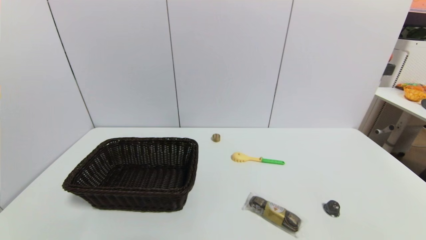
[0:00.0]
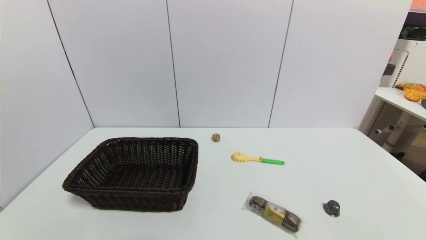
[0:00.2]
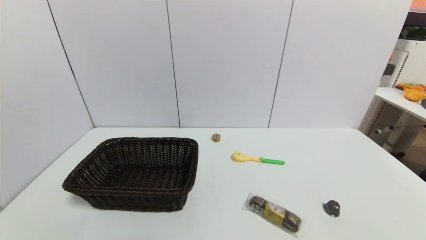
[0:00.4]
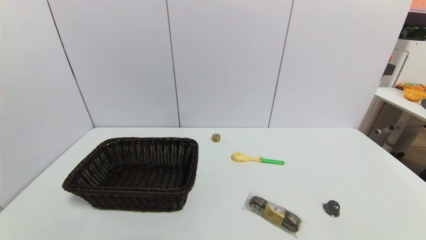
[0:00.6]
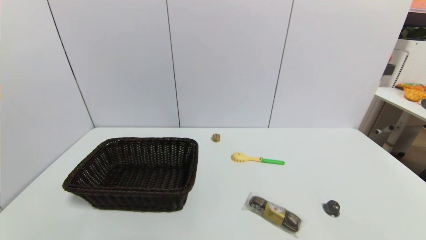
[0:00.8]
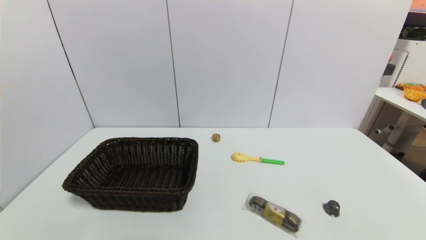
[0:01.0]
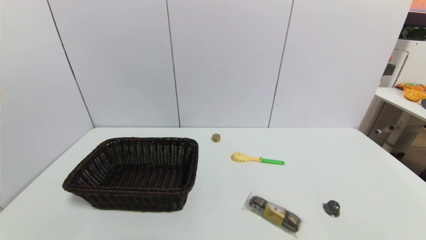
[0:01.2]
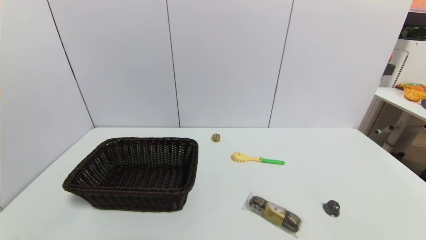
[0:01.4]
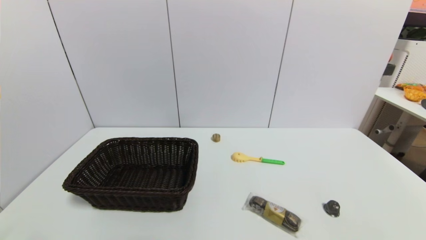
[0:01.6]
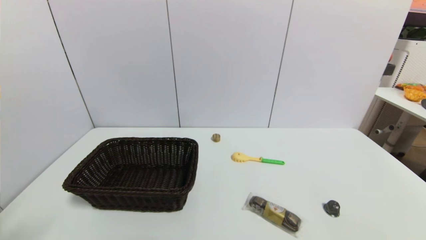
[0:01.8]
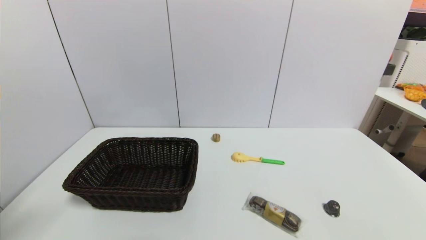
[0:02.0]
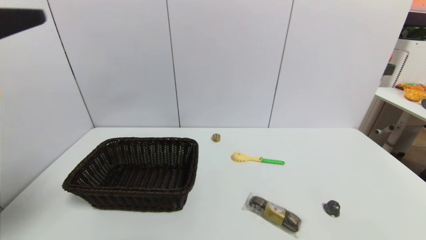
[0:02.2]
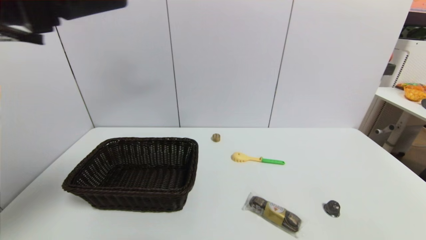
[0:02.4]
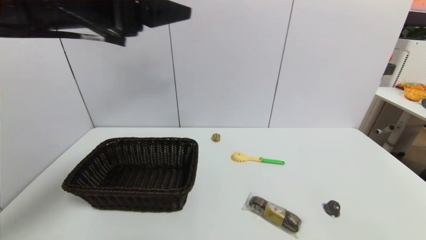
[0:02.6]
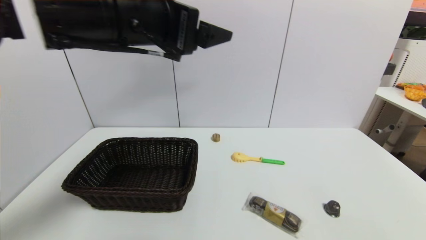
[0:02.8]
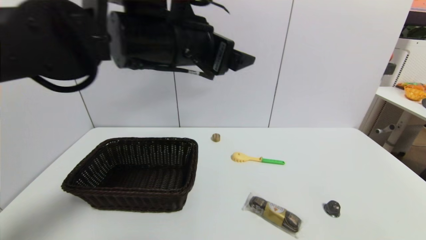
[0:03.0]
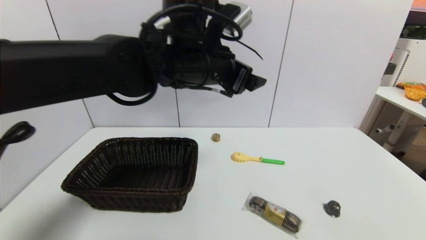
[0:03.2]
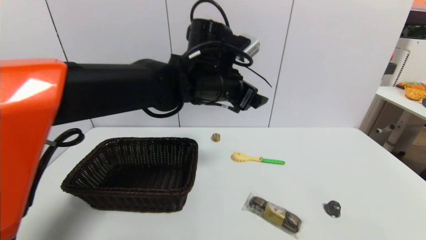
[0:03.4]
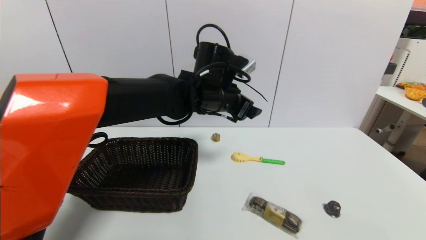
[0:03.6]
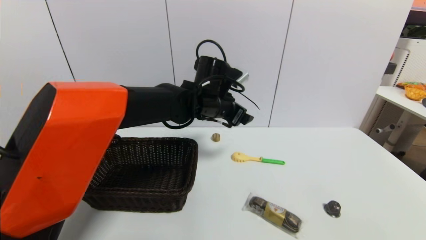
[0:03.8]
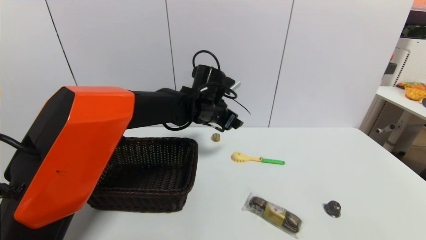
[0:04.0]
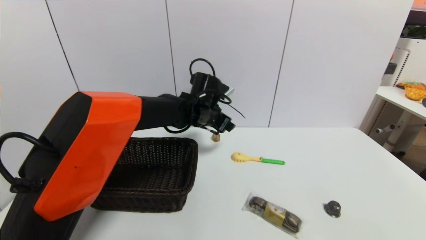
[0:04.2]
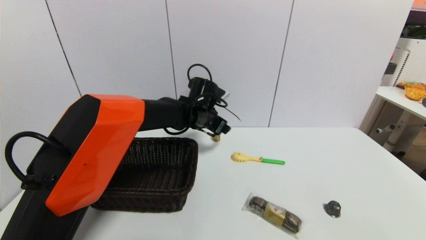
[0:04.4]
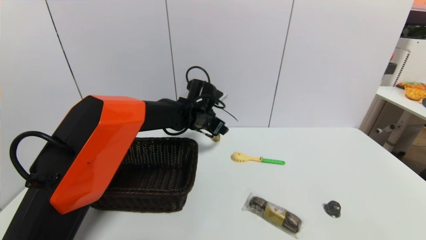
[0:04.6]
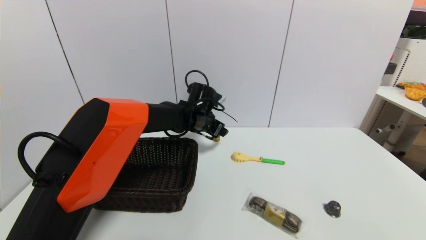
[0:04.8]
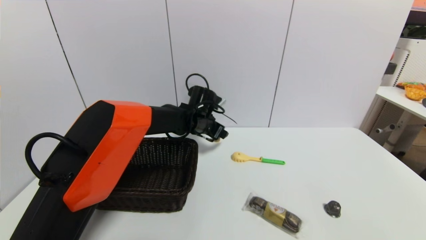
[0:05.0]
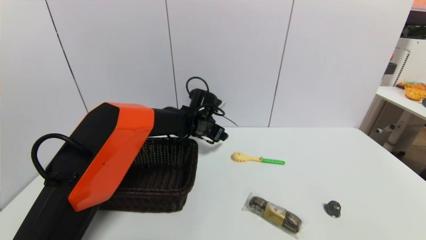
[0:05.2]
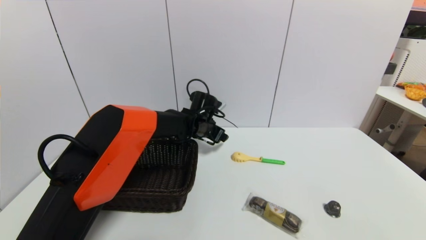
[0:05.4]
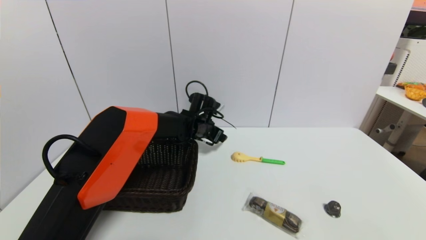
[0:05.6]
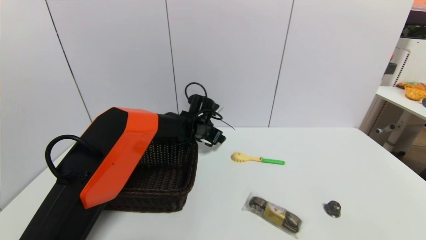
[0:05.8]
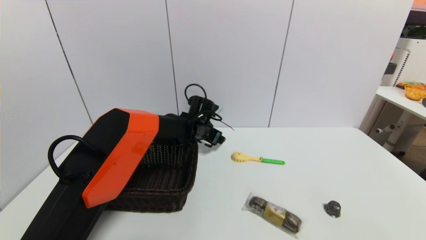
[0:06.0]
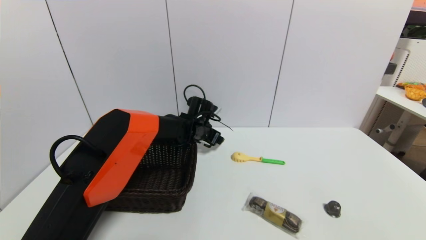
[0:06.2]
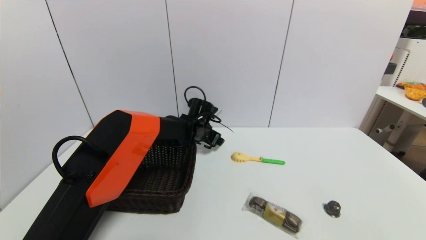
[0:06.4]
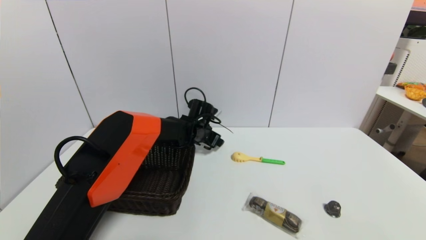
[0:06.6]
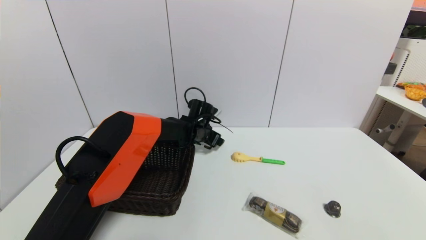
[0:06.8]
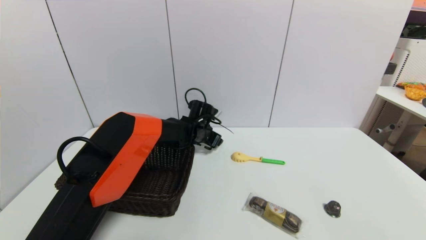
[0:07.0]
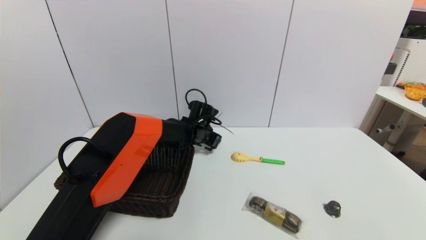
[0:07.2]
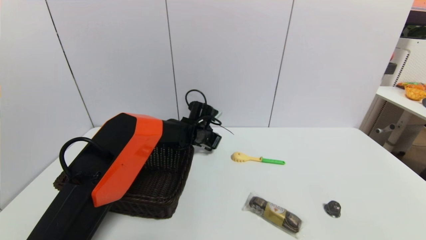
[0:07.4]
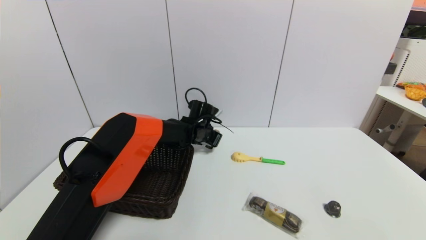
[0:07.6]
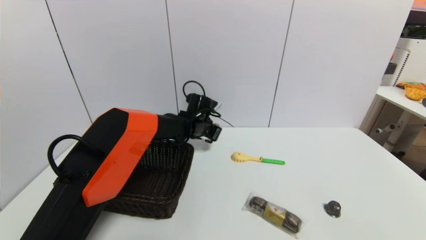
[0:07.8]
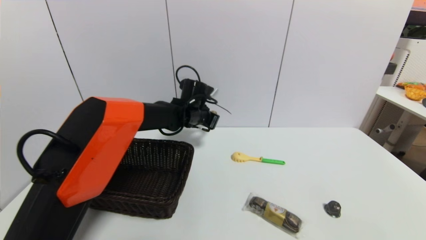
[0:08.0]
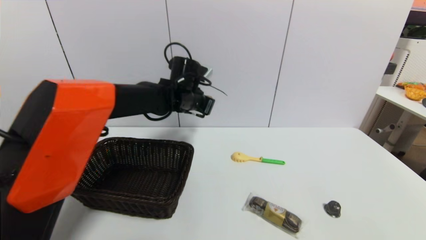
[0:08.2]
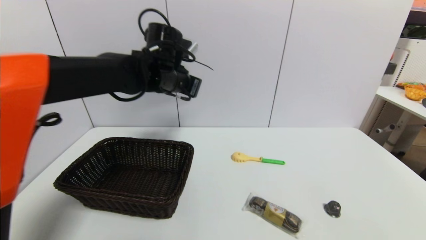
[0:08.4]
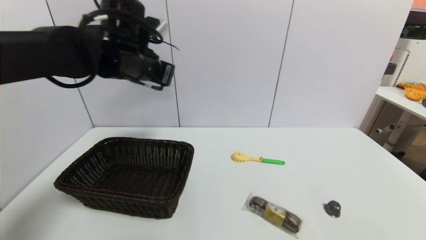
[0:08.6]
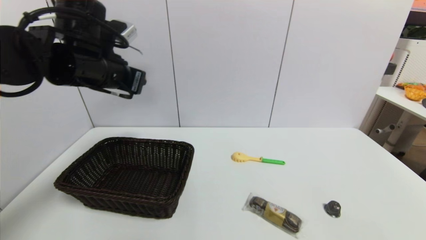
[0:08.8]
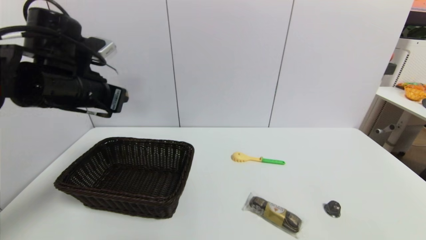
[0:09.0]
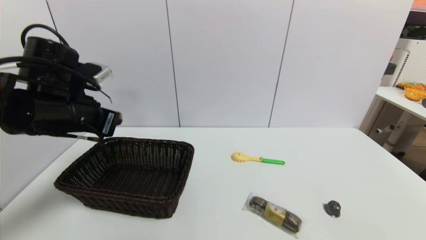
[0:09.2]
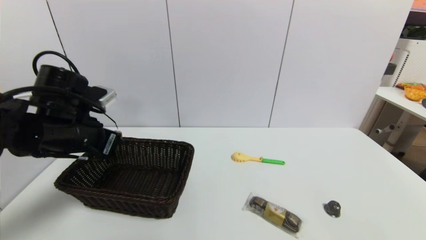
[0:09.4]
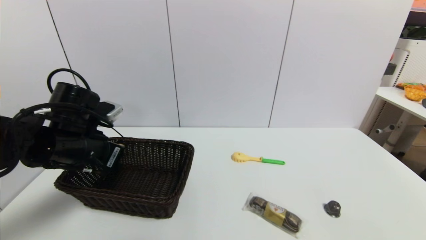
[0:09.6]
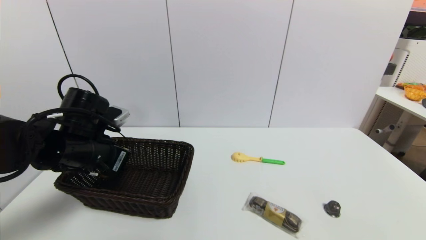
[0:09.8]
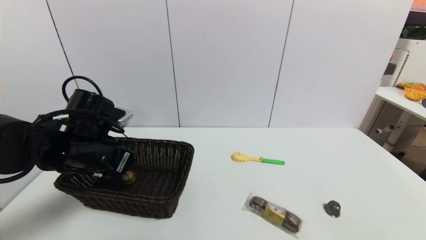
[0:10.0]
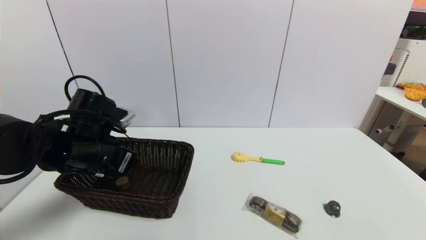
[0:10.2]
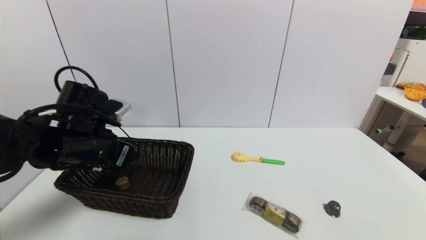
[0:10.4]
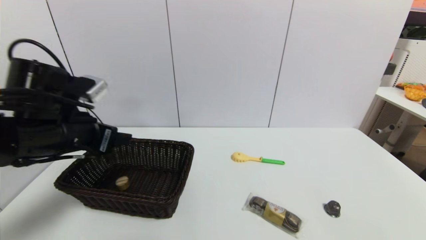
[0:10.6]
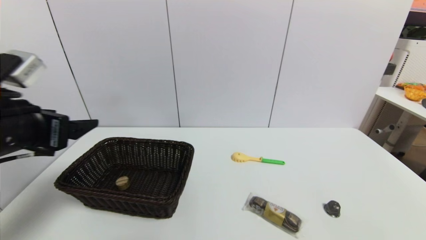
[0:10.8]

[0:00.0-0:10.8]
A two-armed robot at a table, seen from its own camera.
Task of the whole recording: use a gripper to pick the target object and place on the brown basket.
Step, 0:00.0 to 0:07.4: Grasp the round wooden block with the left gripper.
Step, 0:07.6 to 0:10.2: Place the round wooden block into the basket with the left gripper.
0:01.6 to 0:03.0: The left gripper goes roughly 40 cm forward, to the right and upward.
0:03.0 to 0:04.6: The left gripper moves downward and forward, some 25 cm.
0:04.6 to 0:06.2: The left gripper is displaced downward by approximately 5 cm.
0:06.2 to 0:07.8: The left gripper closes up.
0:07.8 to 0:09.2: The left gripper goes roughly 30 cm backward, to the left and upward.
0:09.2 to 0:10.8: The left gripper goes some 10 cm backward, and opens up.

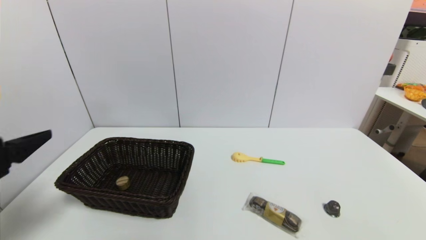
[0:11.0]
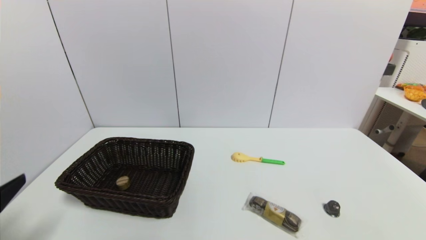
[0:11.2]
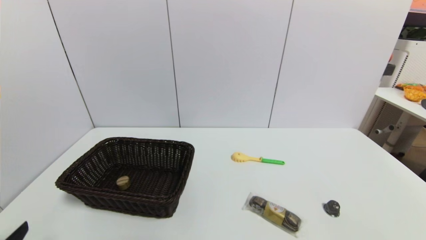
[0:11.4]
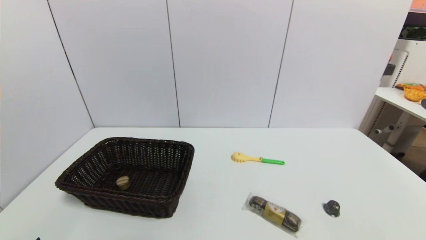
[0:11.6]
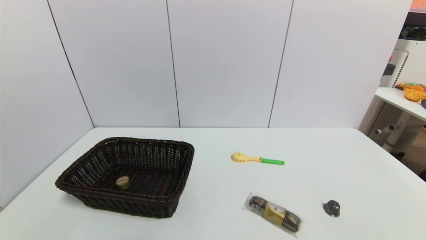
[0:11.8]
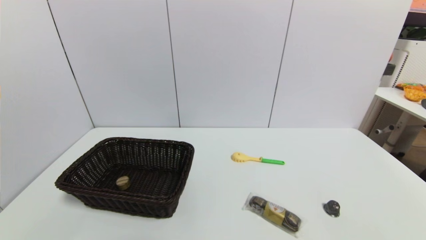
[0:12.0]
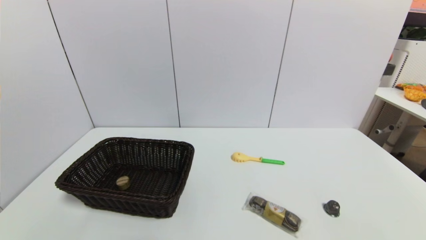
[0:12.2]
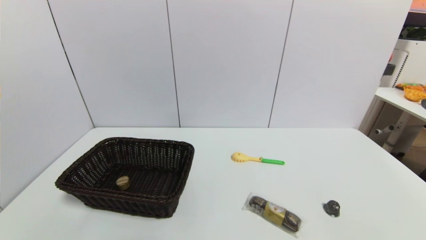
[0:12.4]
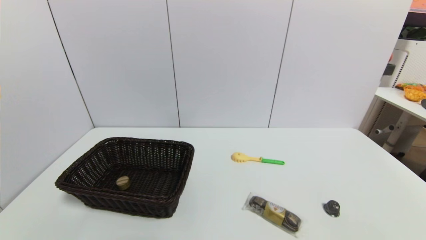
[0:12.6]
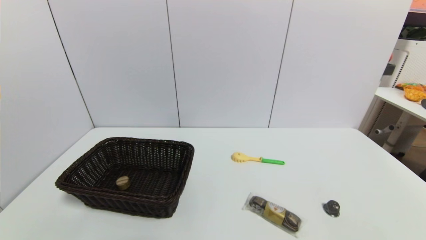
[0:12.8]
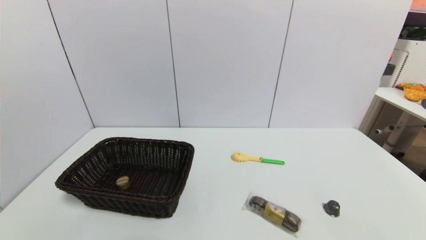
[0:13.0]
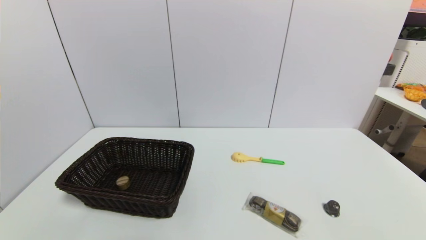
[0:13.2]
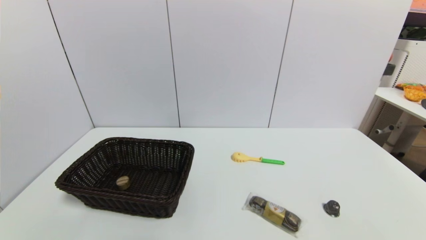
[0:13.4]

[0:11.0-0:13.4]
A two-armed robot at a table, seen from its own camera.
Task of the whole recording: use a gripper to pick the target object and place on the brown basket.
0:11.0 to 0:12.2: The left gripper moves downward and backward, approximately 20 cm.

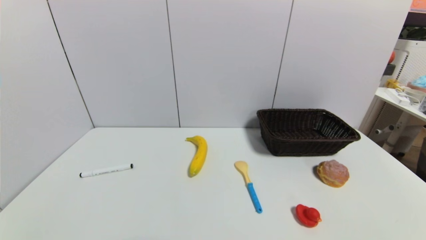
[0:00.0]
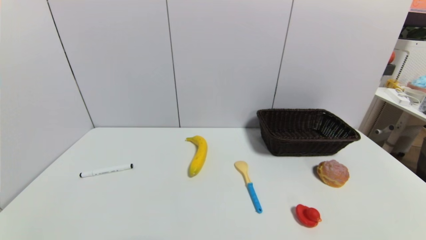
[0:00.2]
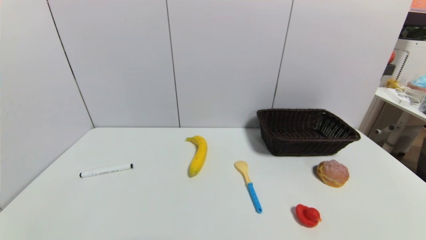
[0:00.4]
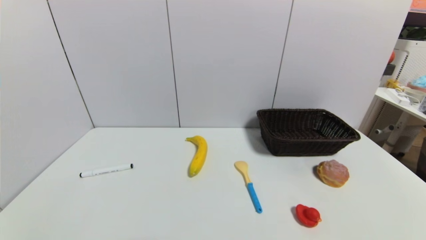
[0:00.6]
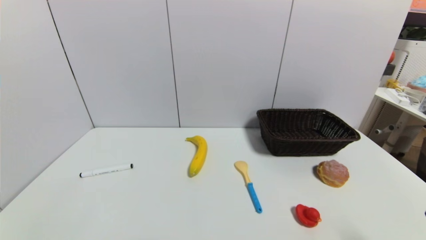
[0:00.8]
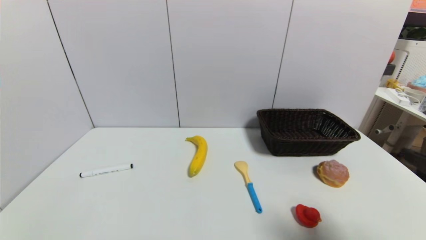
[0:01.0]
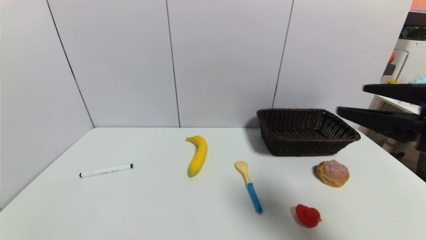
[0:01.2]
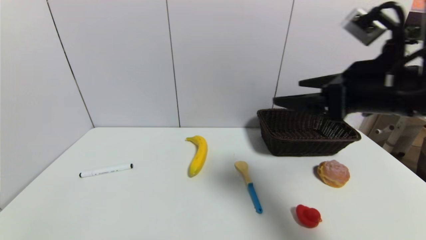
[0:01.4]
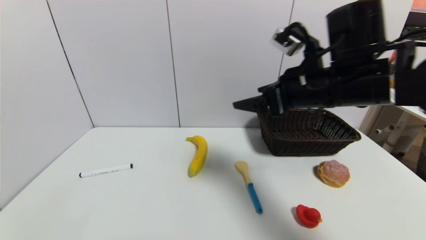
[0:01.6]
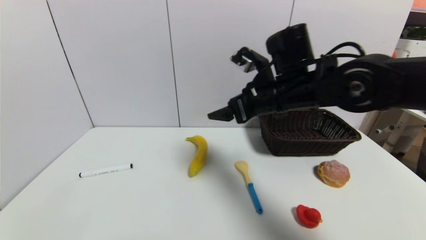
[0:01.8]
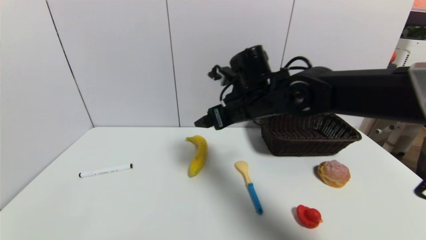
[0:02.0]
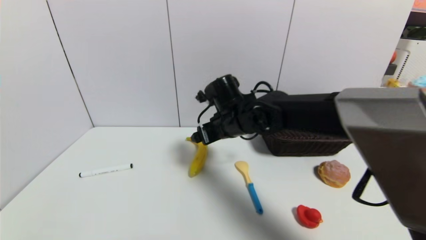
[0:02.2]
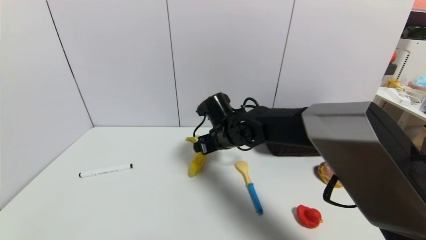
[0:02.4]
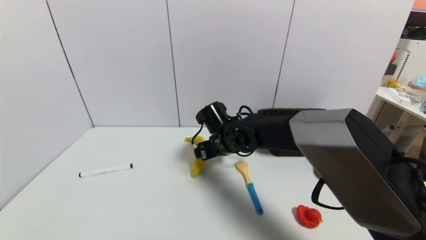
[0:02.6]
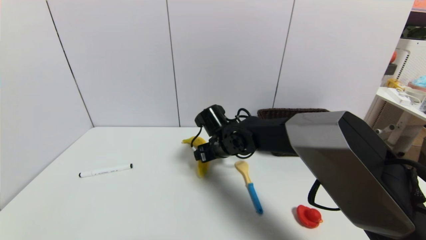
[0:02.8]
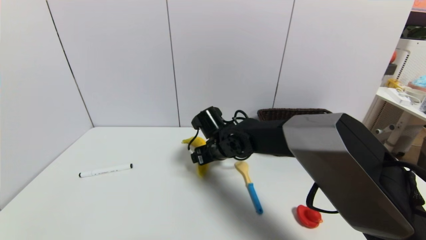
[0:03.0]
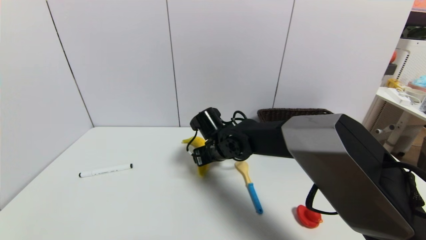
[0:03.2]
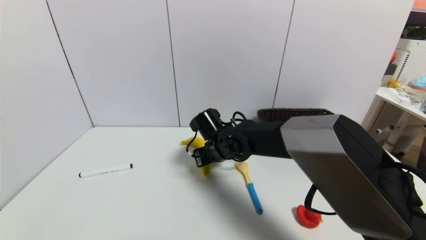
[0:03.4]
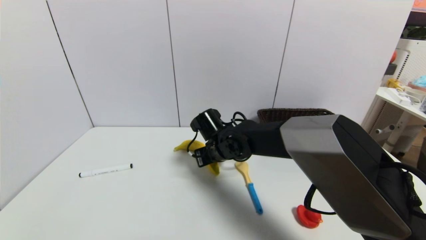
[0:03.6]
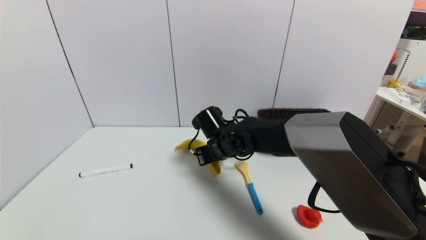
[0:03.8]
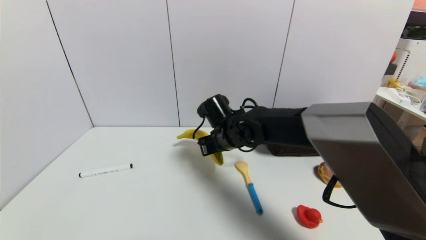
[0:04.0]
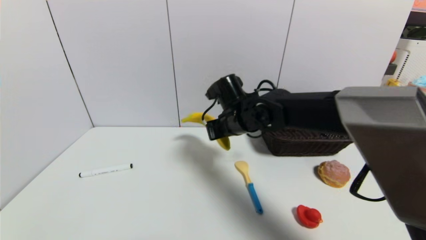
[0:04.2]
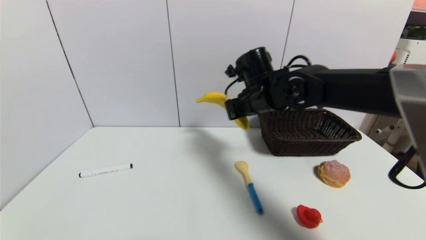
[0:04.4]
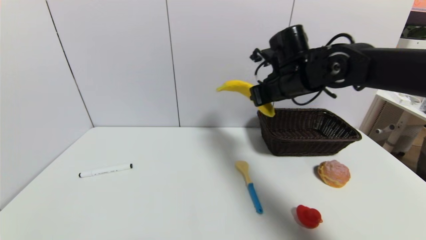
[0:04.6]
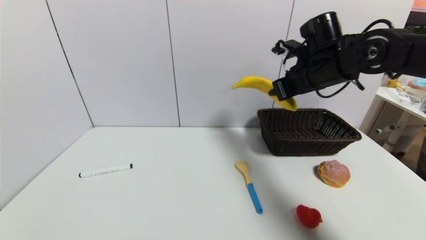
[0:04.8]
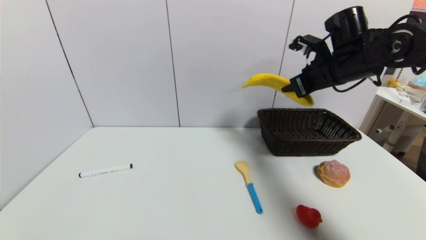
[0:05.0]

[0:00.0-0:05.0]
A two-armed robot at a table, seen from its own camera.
Task of the whole recording: use a gripper to pick the target object and place on the brown basket.
Step, 0:00.0 to 0:03.6: Grasp the banana with the right gripper.
0:00.0 to 0:01.6: The right gripper moves forward, upward and to the left, approximately 40 cm.
0:01.6 to 0:03.4: The right gripper goes some 25 cm downward, to the left and forward, and closes up.
0:03.4 to 0:05.0: The right gripper moves to the right and upward, some 30 cm.
